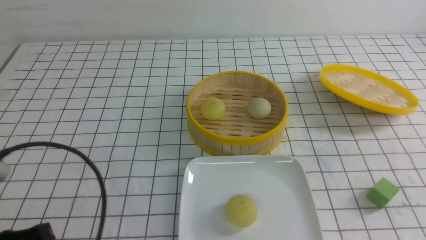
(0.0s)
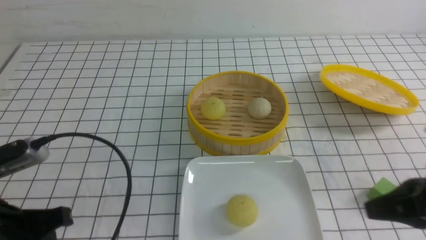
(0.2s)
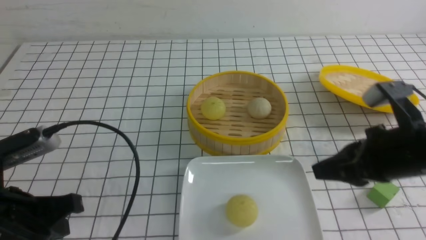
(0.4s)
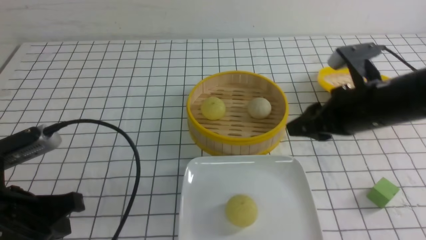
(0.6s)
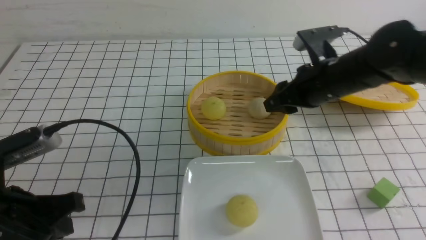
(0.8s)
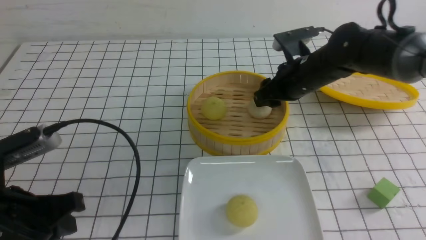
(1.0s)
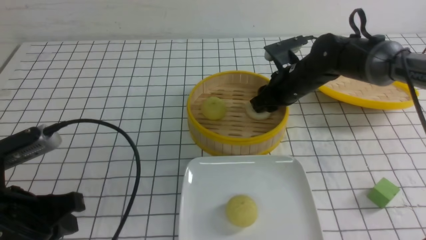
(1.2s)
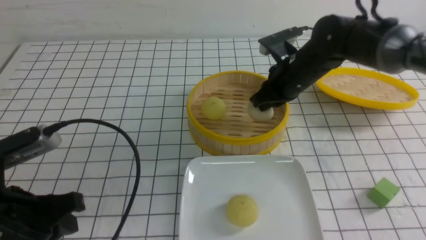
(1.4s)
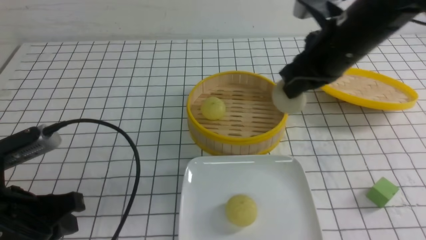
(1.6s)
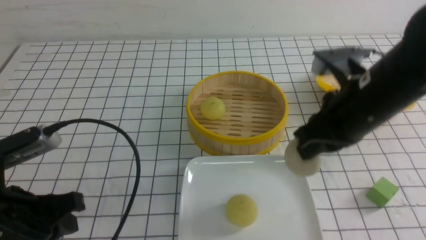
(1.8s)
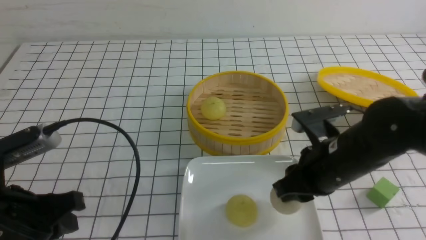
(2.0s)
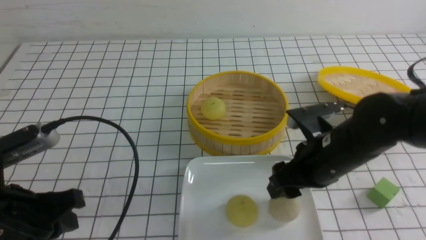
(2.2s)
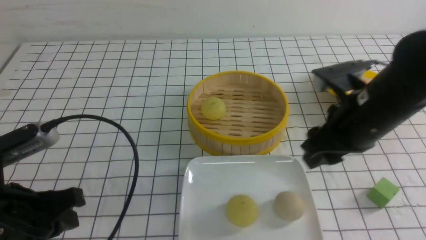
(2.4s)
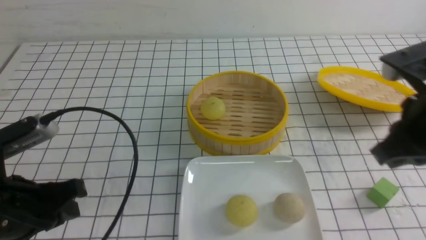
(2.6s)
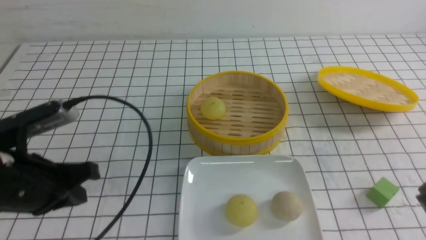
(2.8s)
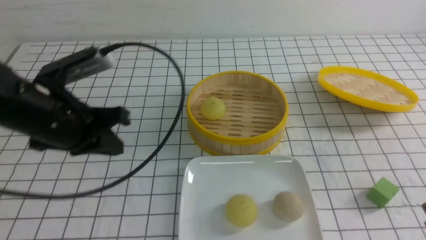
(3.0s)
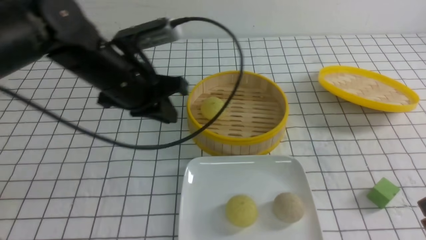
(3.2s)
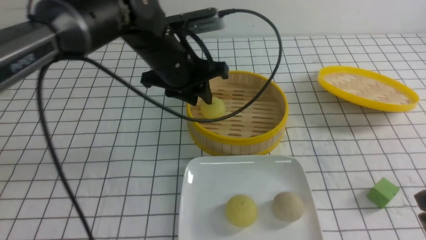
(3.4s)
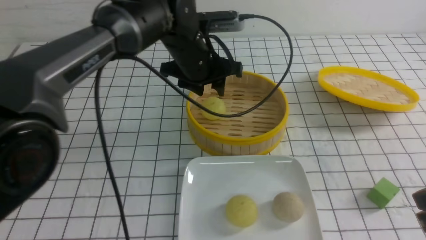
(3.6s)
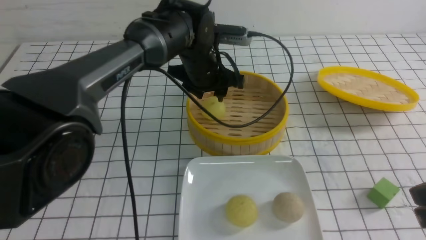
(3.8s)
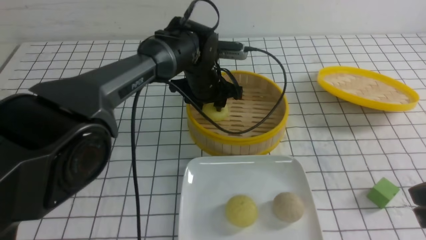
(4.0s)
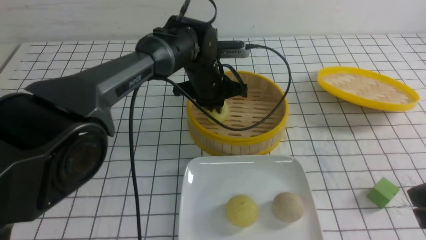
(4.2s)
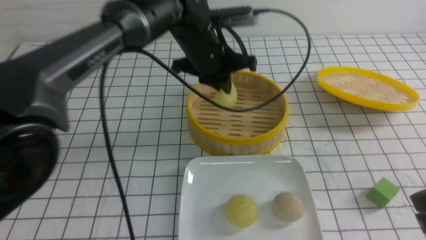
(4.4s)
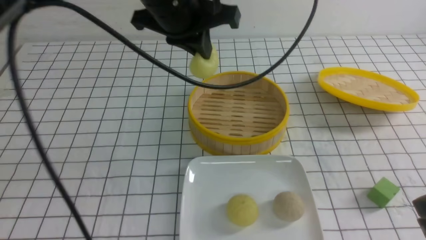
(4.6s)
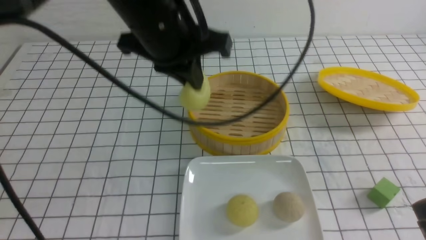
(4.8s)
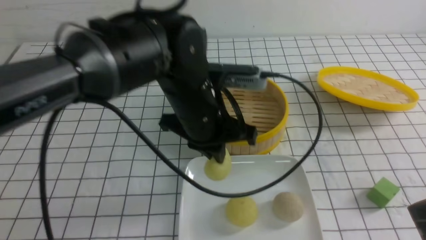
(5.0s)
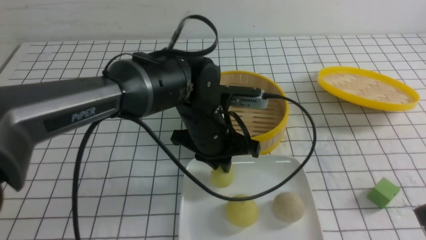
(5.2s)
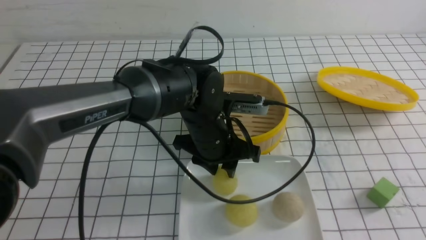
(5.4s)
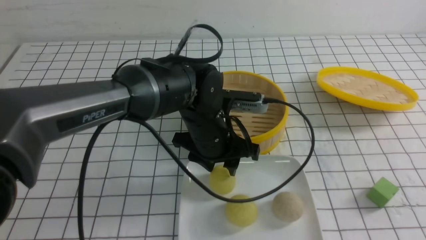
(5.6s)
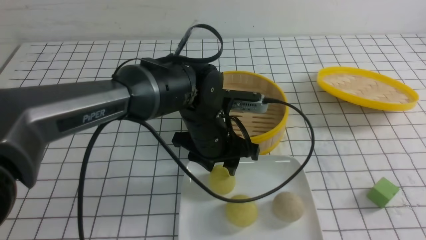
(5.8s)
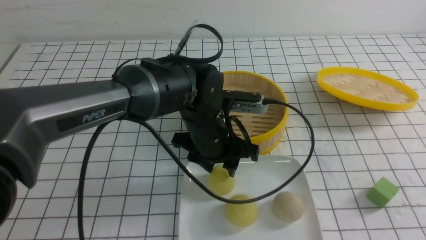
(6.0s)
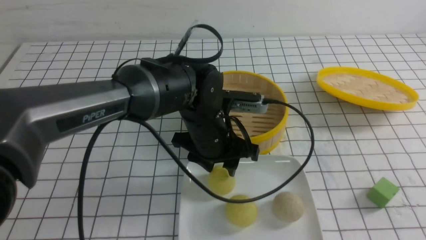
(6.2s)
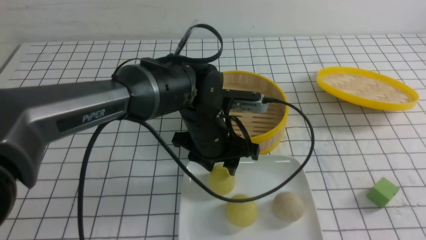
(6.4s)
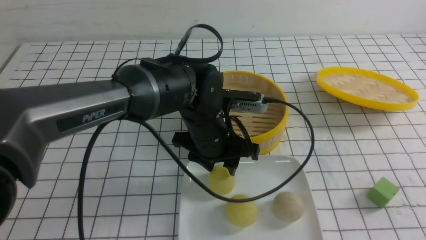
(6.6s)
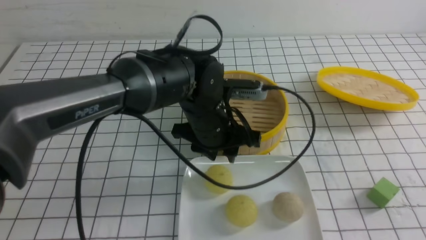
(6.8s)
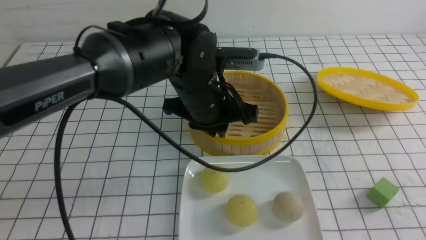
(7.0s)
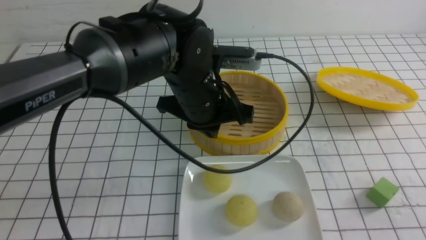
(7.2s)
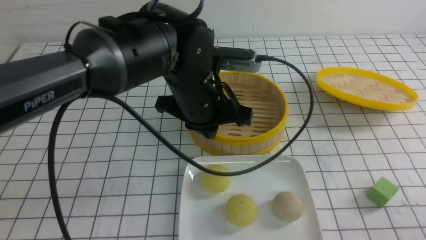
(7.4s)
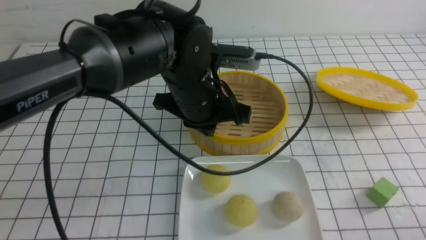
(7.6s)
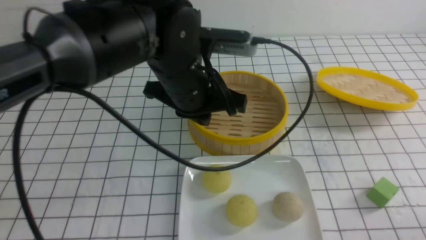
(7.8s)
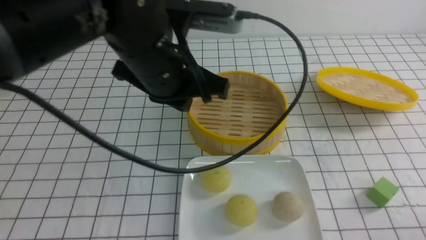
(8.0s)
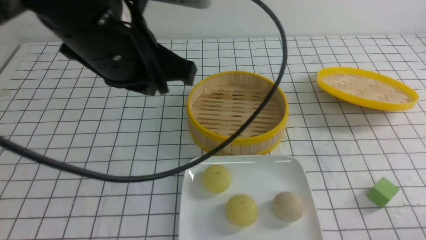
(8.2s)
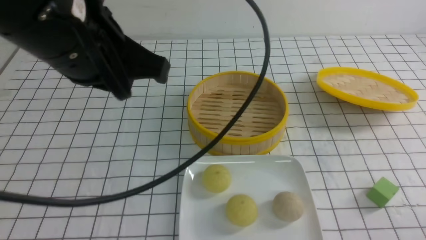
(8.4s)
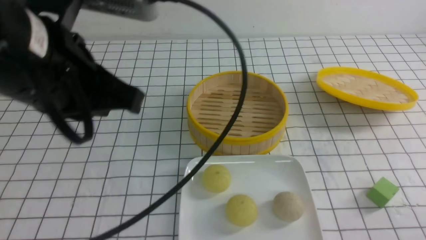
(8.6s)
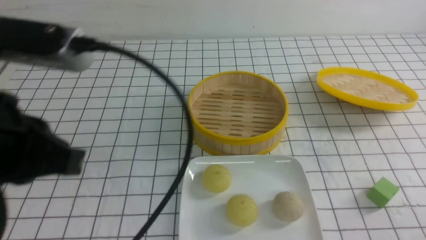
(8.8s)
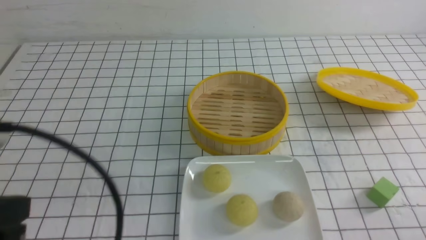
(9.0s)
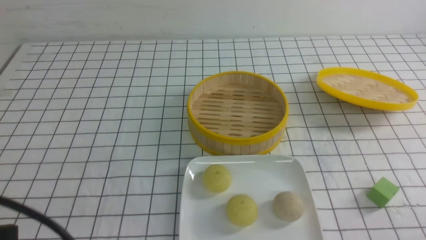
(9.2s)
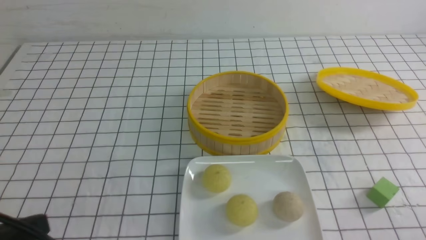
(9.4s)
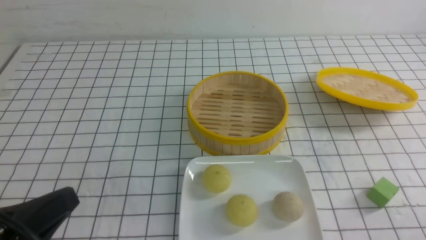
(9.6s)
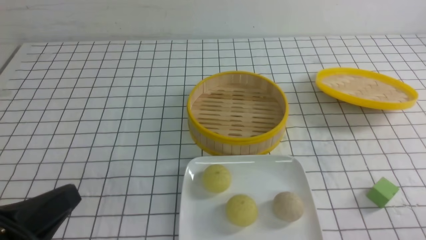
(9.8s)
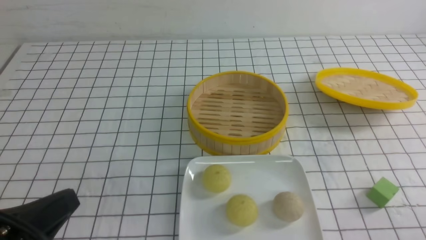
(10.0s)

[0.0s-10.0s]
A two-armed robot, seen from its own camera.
Step, 1.4s to 2.2s: use the right arm to put the steamed stuffed bun into the plate.
Step, 2.6s to 4.2s: use the left arm to grab the steamed stuffed bun that is closest to it.
Step, 4.4s to 7.6s: use the left arm to put the steamed stuffed bun into the plate.
0.0s to 1.4s: The left gripper is displaced forward by approximately 5 cm, and opens; the right gripper goes roughly 30 cm forward and to the left, and opens, then closes again.
1.4s to 2.8s: The left gripper goes about 5 cm forward, and closes up; the right gripper shifts roughly 25 cm backward and to the right, and opens and closes again.
2.8s to 4.2s: The left gripper shifts some 30 cm forward and to the right, and opens and closes again.
4.2s to 5.8s: The right gripper heads backward and to the right, covering about 10 cm. The left gripper is displaced backward by some 10 cm, goes upward and returns, roughly 15 cm each way, and opens its fingers.
5.8s to 7.2s: The left gripper travels upward by some 5 cm, and closes. Meanwhile the right gripper moves downward, about 5 cm.
7.2s to 8.6s: The right gripper is displaced downward by about 5 cm; the left gripper shifts about 25 cm backward, to the left and upward.
8.6s to 10.0s: The left gripper goes about 20 cm downward, backward and to the left.

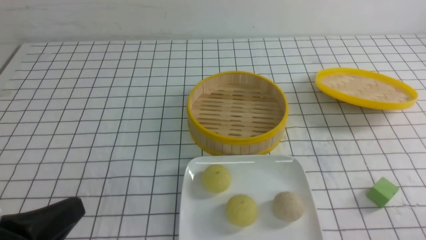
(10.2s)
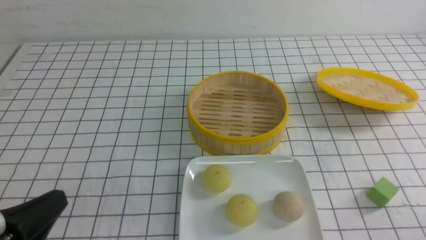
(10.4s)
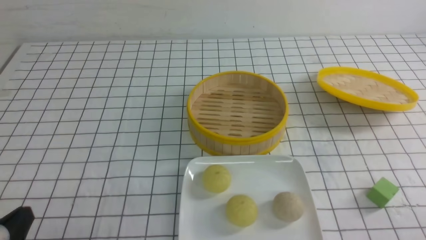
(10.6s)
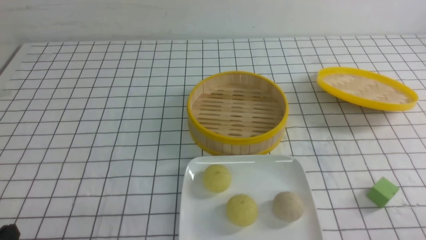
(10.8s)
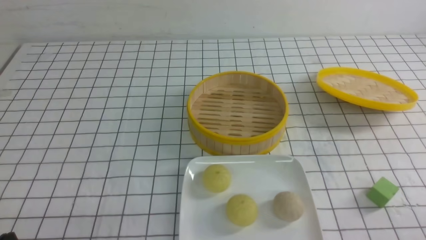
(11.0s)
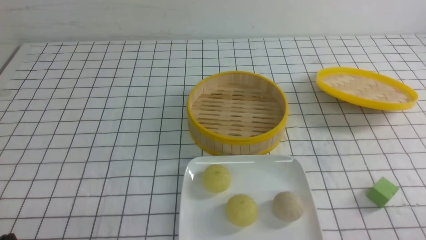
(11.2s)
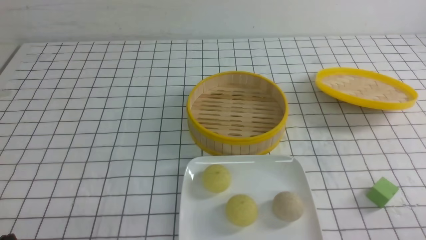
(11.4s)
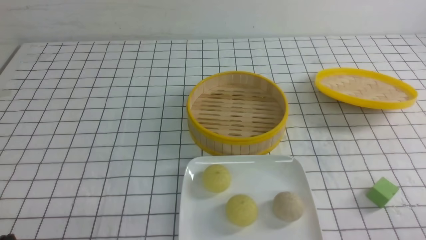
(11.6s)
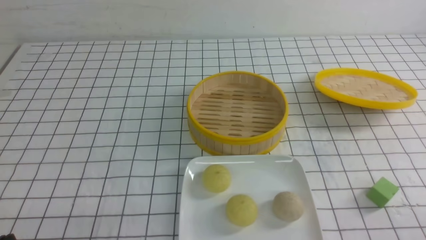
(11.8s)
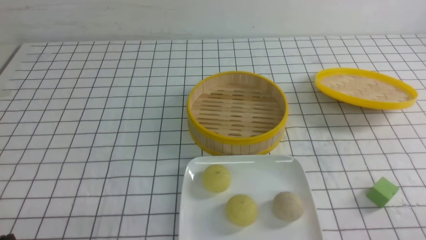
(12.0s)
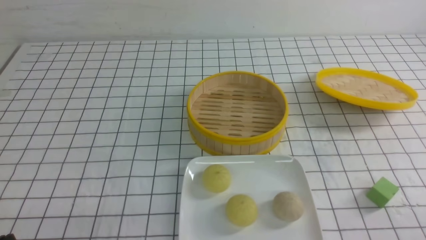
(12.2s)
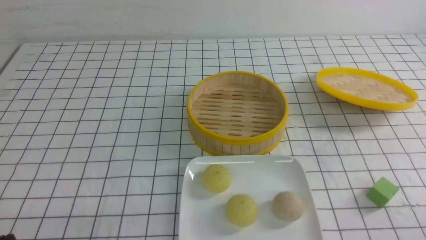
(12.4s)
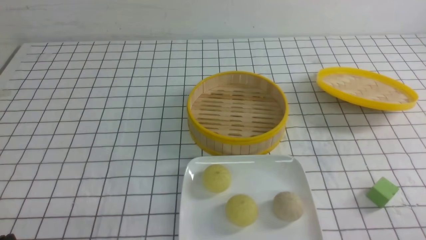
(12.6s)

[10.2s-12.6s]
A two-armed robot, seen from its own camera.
10.2s to 11.4s: The left gripper is displaced downward by some 10 cm.
11.4s to 12.6s: Both grippers stay about where they are.
